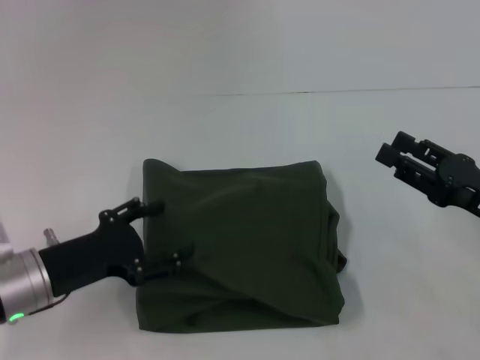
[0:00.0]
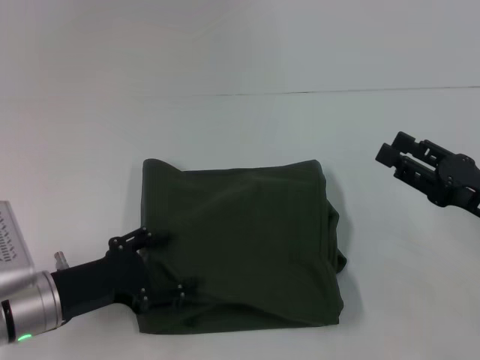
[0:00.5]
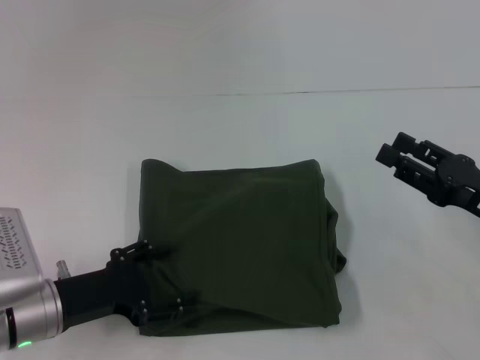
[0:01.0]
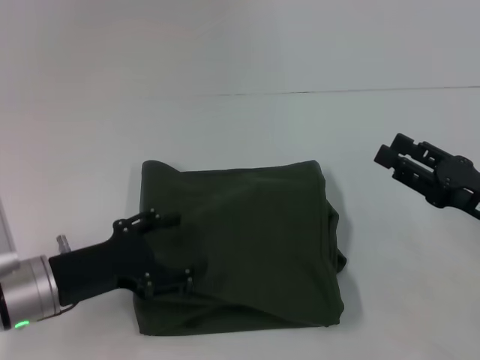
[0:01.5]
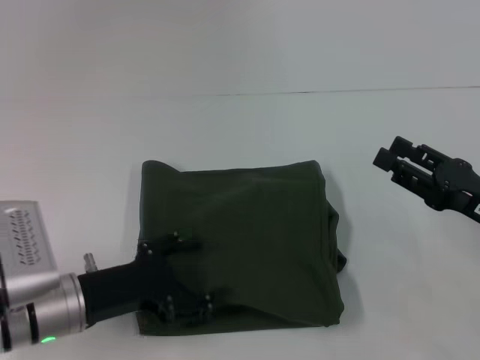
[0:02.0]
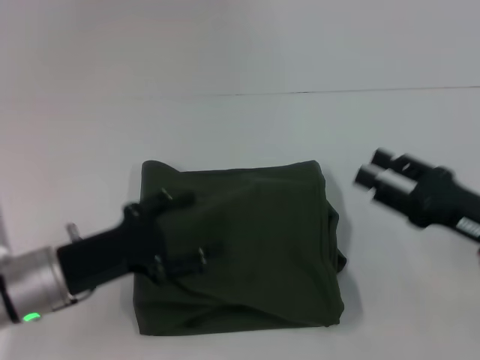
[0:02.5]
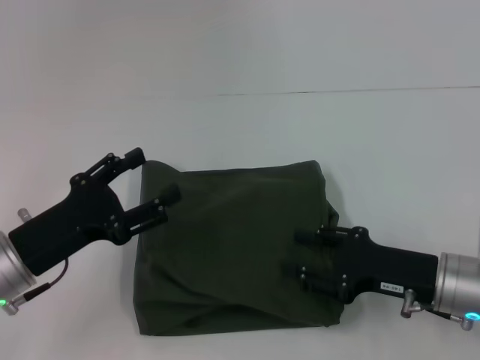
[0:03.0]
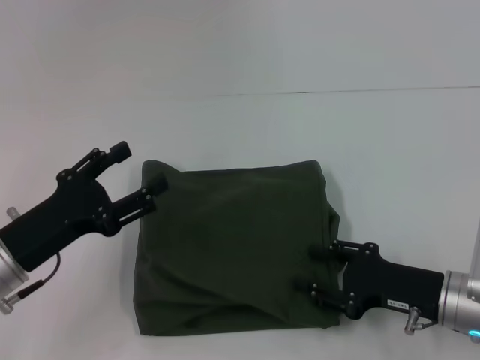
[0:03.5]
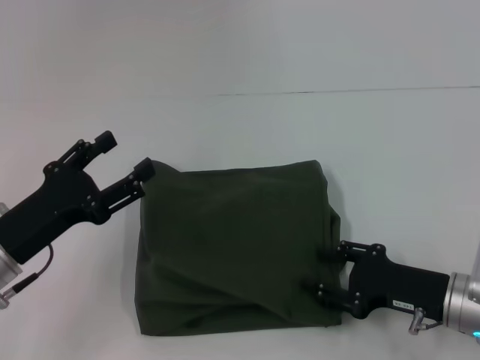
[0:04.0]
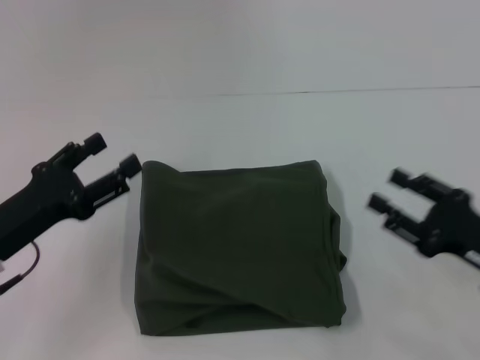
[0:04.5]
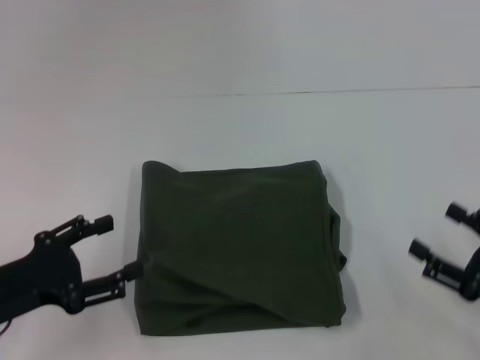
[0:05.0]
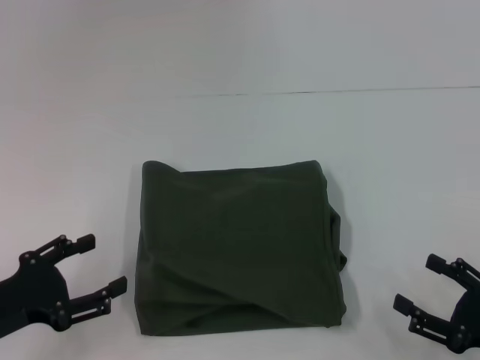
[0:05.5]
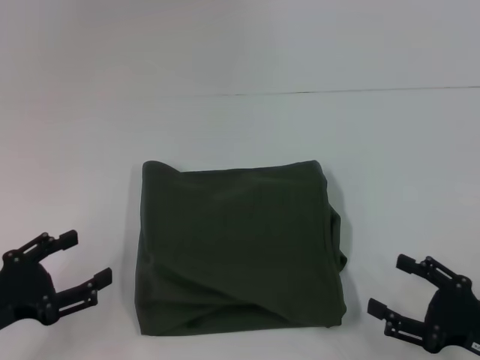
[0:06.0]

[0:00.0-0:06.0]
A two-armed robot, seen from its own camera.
0:00.0 to 0:02.0: The grippers make only small movements.
0:02.0 to 0:04.0: The right gripper is displaced downward and to the left by roughly 10 cm; the left gripper ends up approximately 5 cm from where it was.
0:04.0 to 0:06.0: The left gripper goes about 10 cm backward and to the left. Meanwhile the right gripper is displaced backward and to the right by about 10 cm, and opens up.
